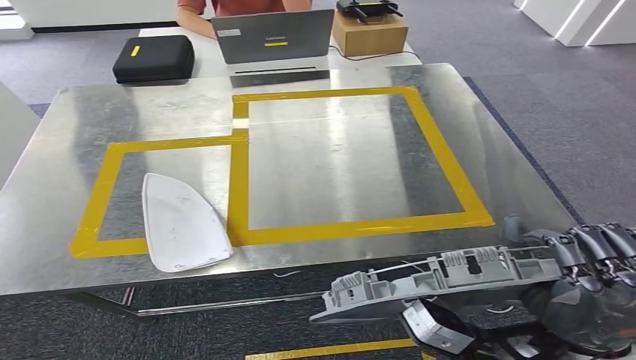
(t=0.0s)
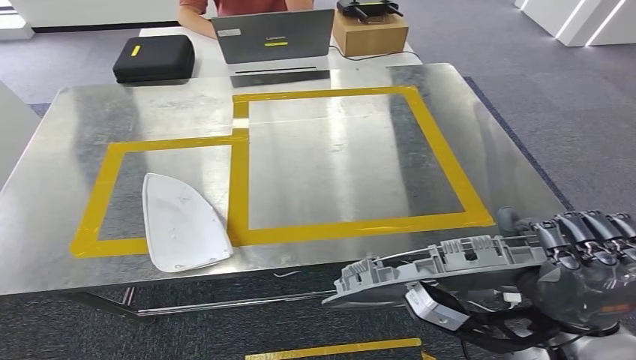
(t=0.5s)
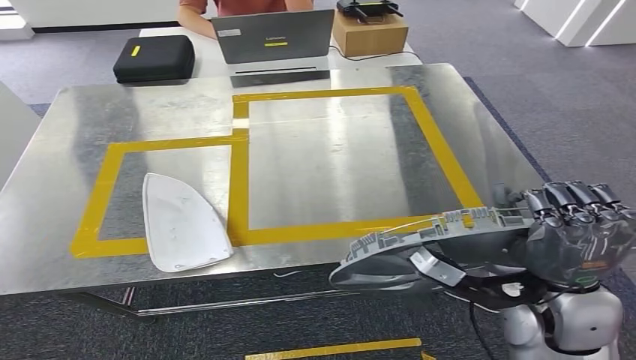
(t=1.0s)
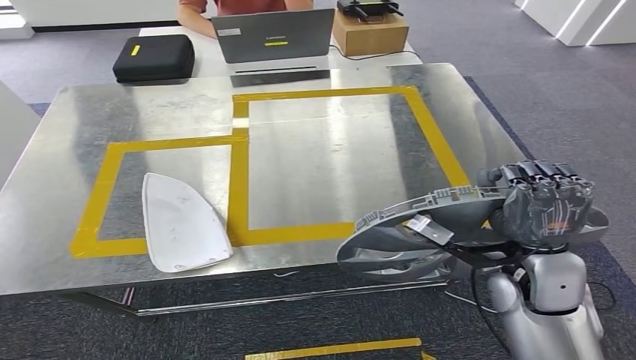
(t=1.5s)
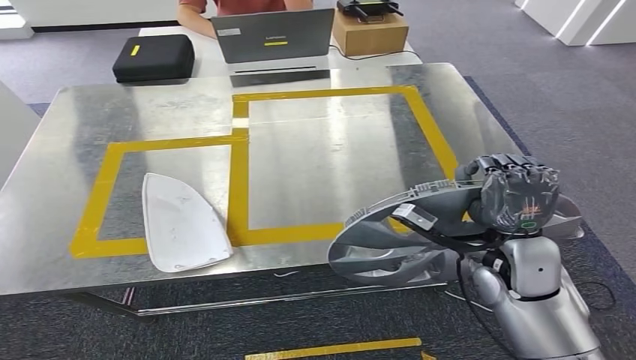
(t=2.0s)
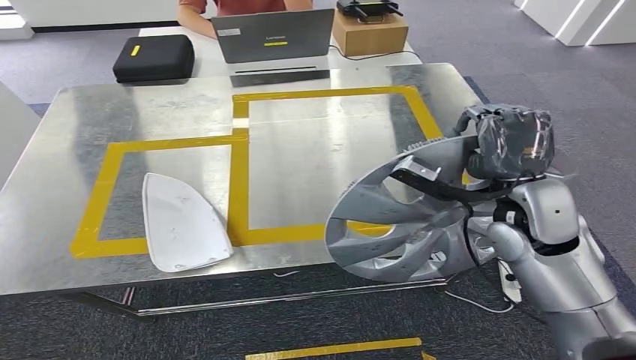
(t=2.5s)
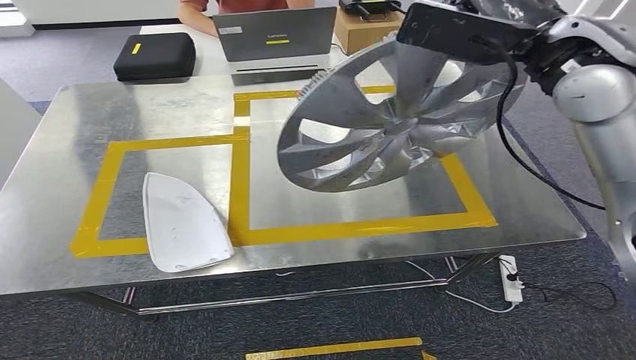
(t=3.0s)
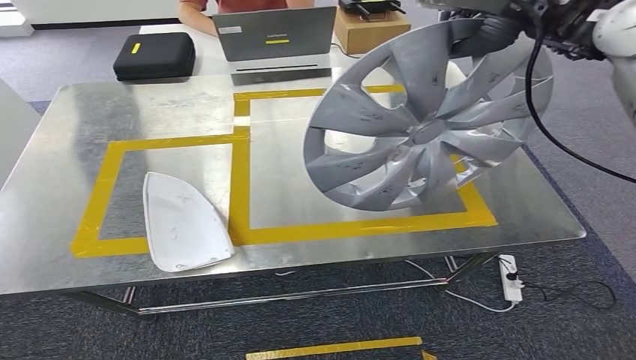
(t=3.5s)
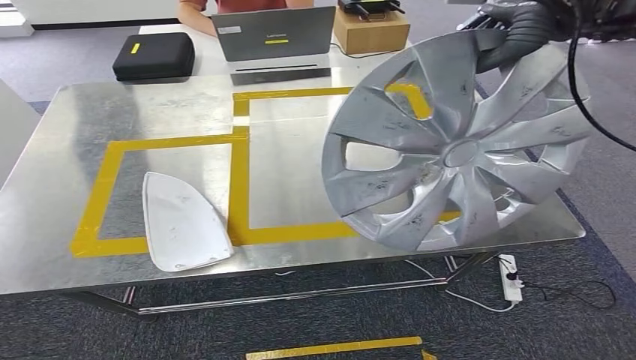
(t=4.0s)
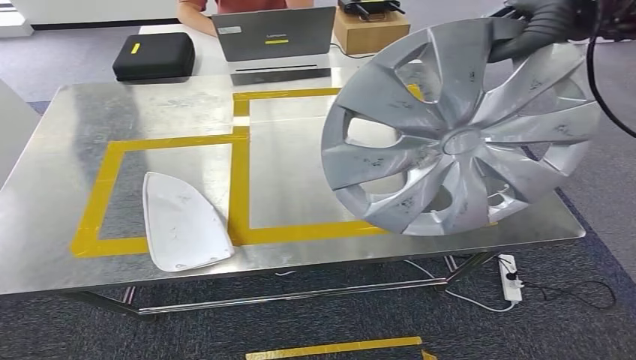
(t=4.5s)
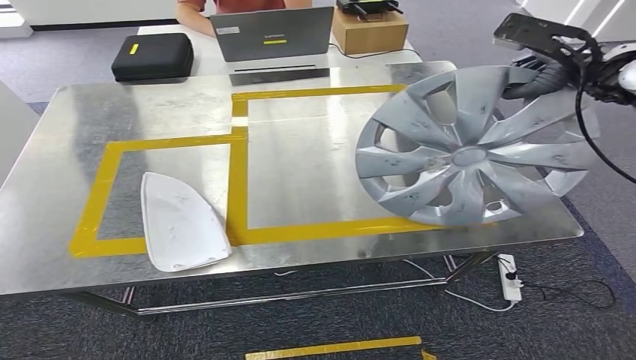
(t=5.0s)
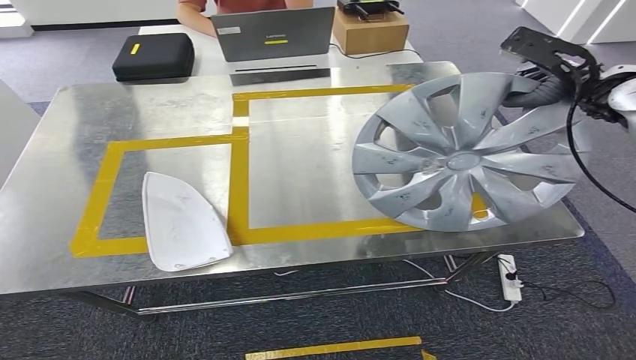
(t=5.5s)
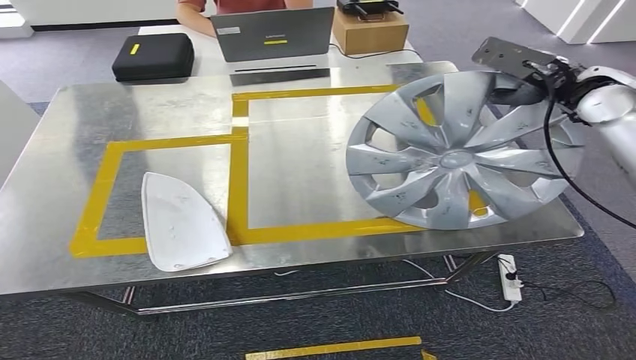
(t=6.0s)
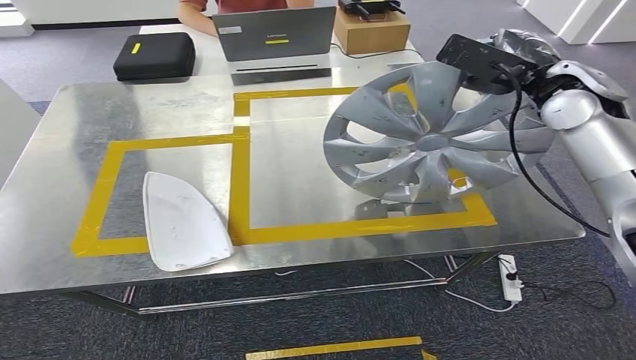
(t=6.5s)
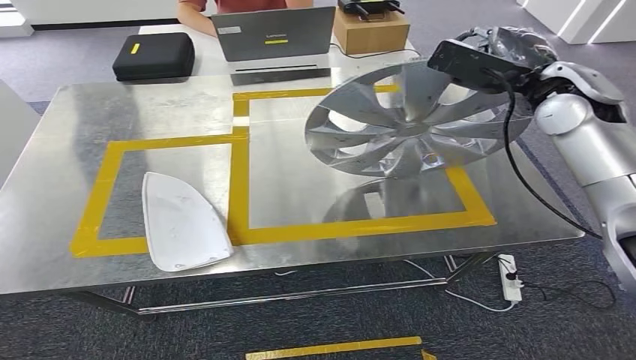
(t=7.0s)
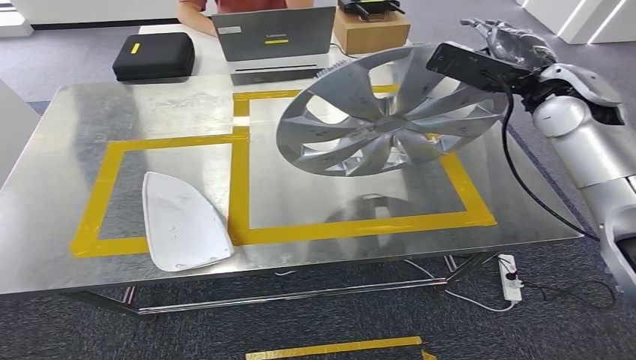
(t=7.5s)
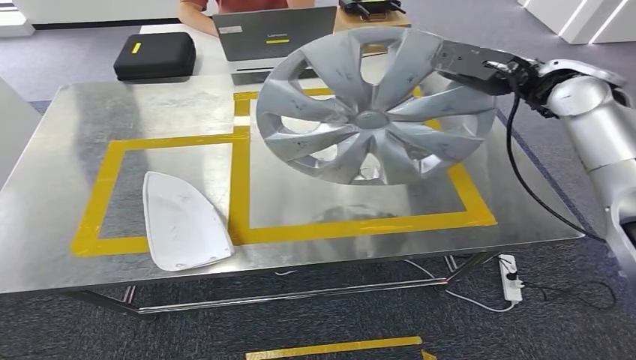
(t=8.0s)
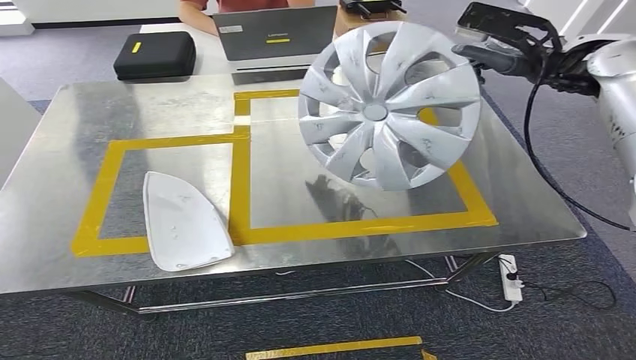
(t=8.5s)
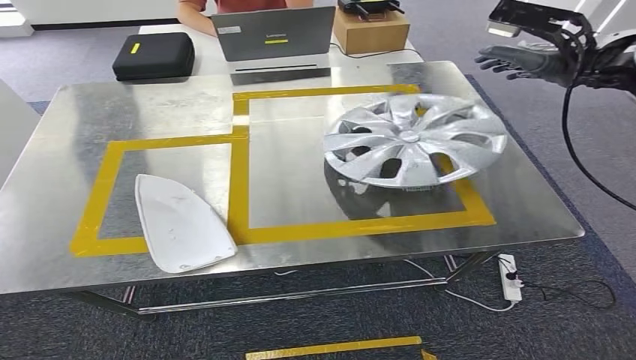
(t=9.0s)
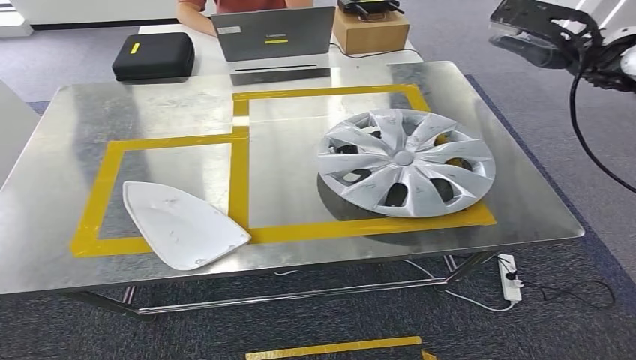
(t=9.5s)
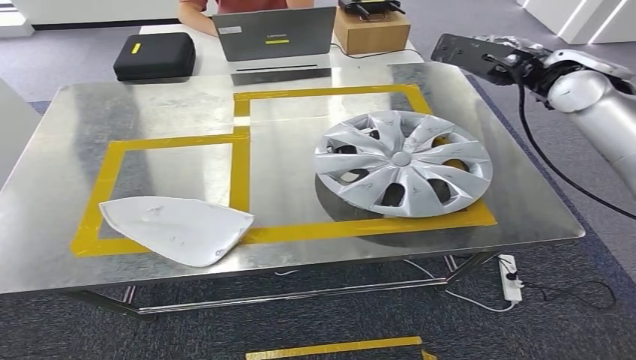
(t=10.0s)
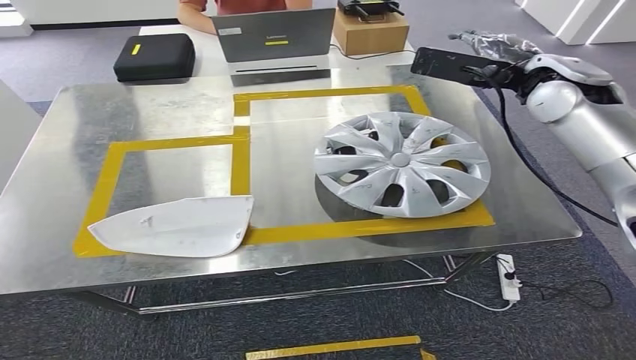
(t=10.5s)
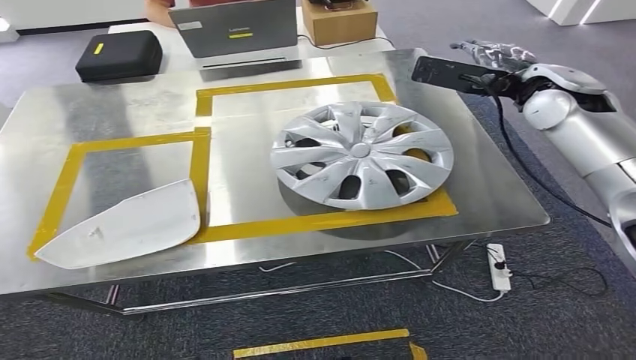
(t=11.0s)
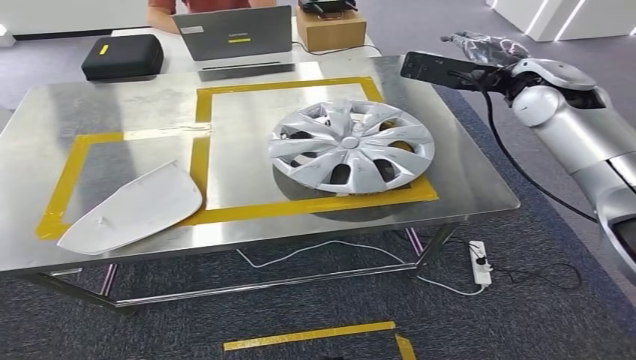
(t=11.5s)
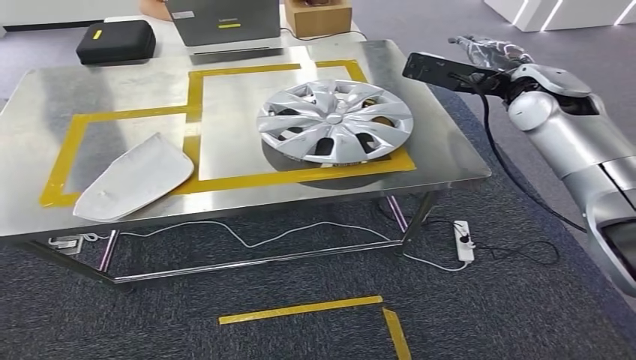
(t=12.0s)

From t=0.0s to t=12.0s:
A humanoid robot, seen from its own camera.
Step, from t=0.0s to t=10.0s: Insert the small parts into the corresponding holes on the workbench.
From t=0.0s to t=2.0s: The right hand heads forward, covering approximately 15 cm.
From t=4.0s to t=6.0s: The right hand heads downward and to the right, covering about 20 cm.

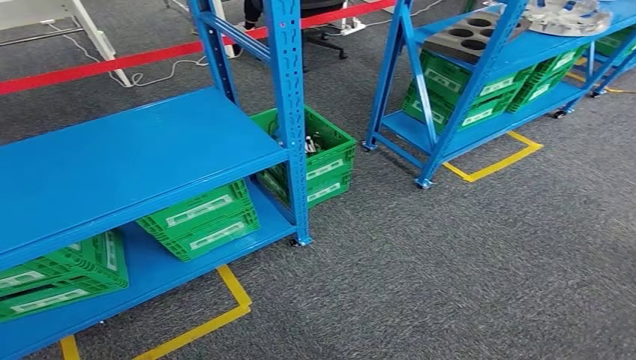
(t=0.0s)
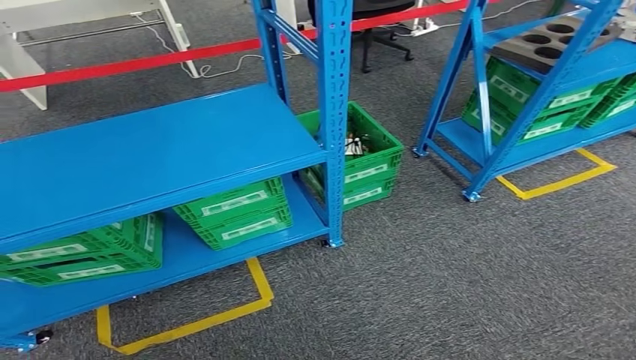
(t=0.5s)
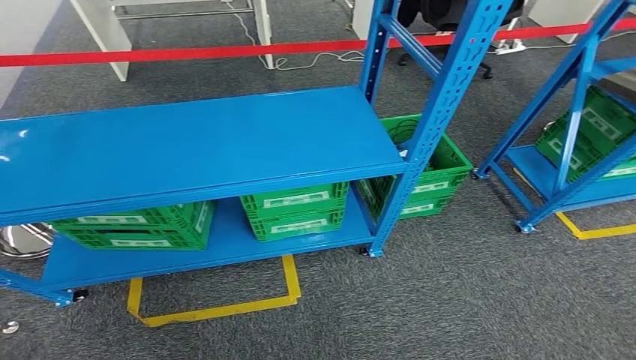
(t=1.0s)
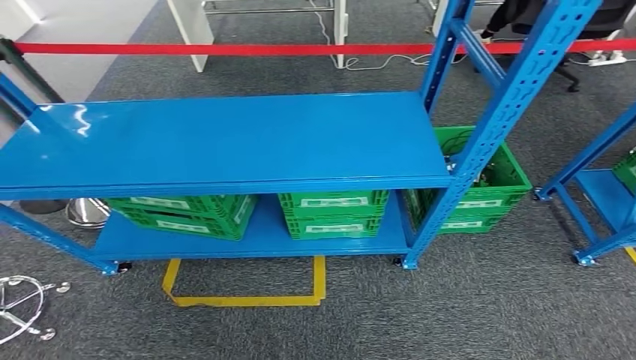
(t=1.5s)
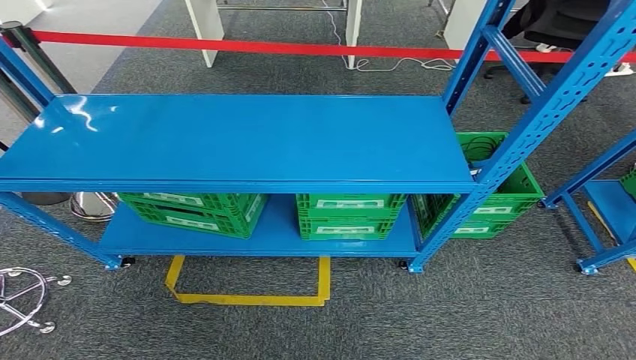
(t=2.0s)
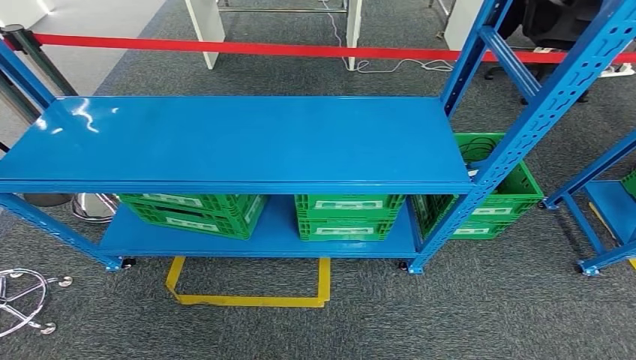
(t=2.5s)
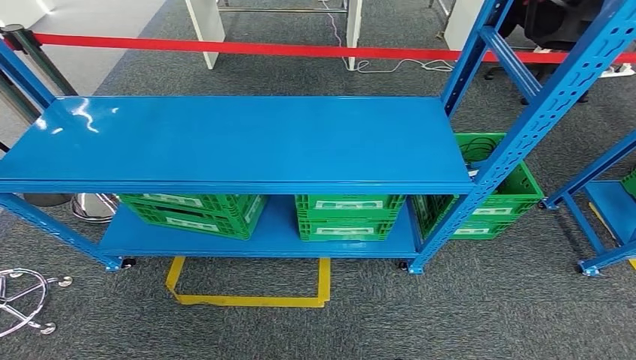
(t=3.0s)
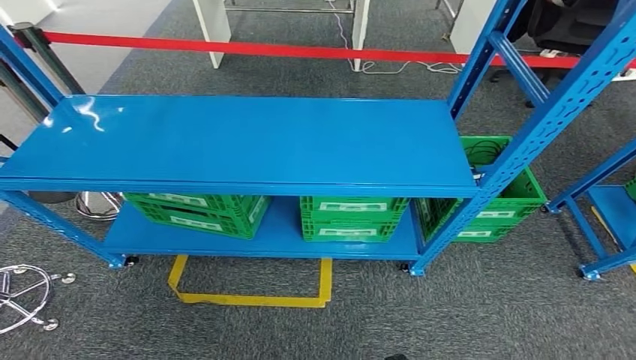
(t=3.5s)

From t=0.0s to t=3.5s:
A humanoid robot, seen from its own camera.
Step, from t=0.0s to t=3.5s: Move to the initial position of the workbench.
From t=2.0s to t=3.5s: The hands stay close to where they were, moving slightly.
